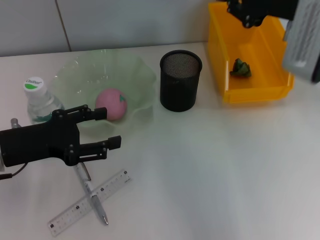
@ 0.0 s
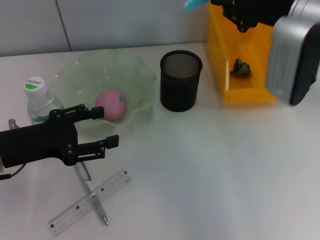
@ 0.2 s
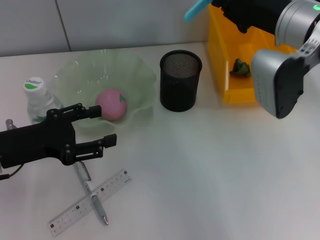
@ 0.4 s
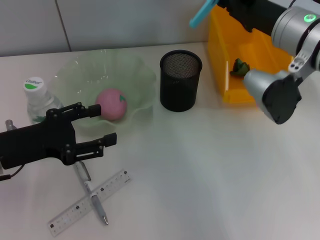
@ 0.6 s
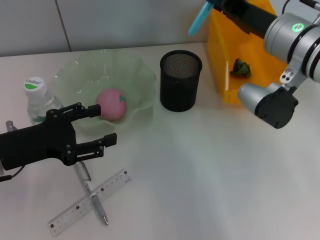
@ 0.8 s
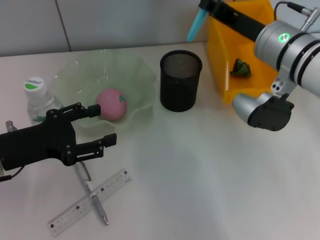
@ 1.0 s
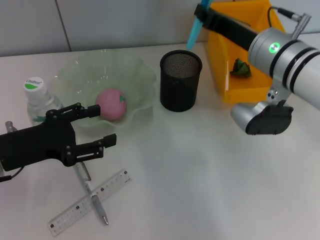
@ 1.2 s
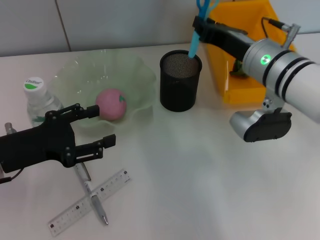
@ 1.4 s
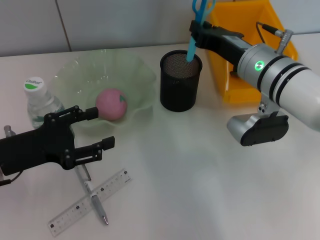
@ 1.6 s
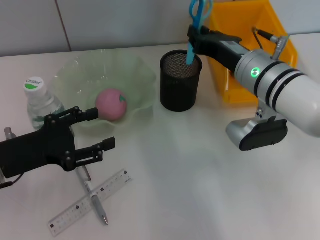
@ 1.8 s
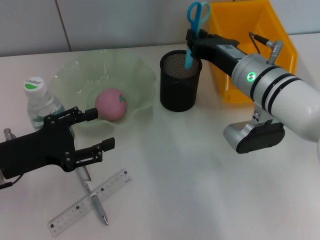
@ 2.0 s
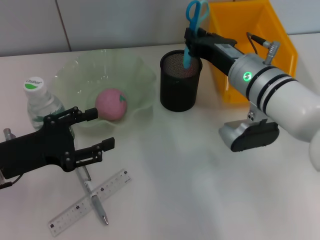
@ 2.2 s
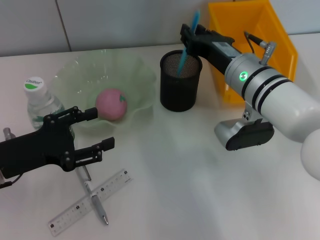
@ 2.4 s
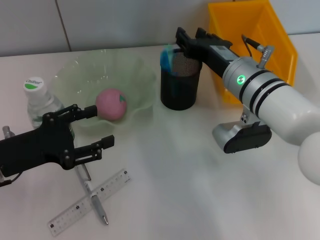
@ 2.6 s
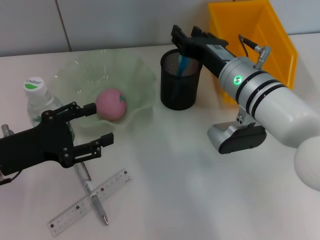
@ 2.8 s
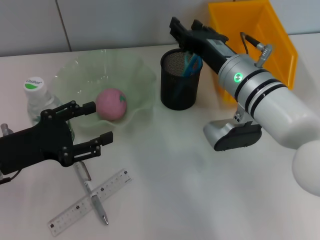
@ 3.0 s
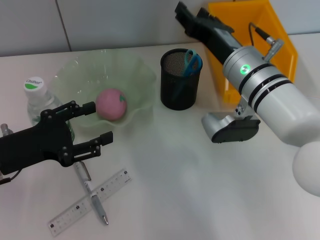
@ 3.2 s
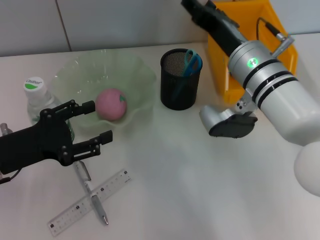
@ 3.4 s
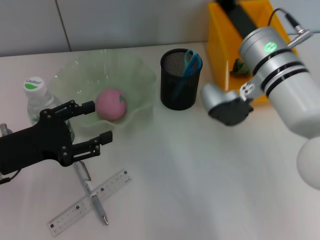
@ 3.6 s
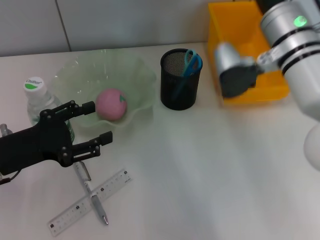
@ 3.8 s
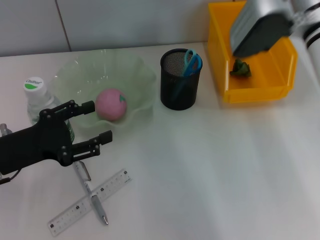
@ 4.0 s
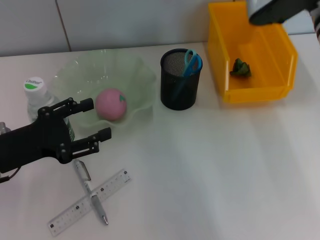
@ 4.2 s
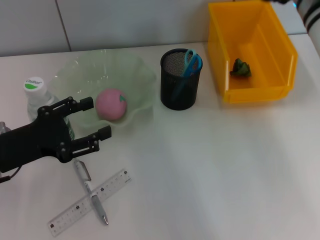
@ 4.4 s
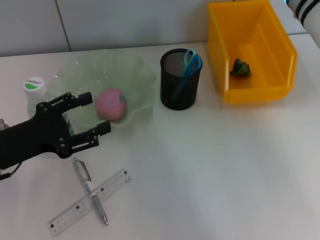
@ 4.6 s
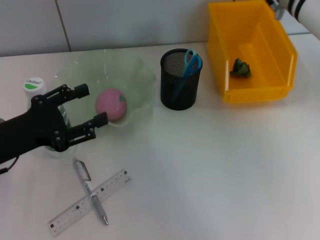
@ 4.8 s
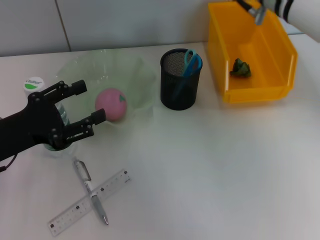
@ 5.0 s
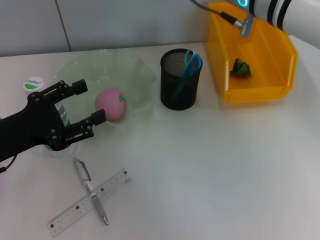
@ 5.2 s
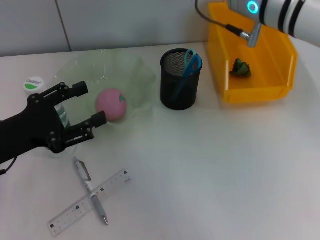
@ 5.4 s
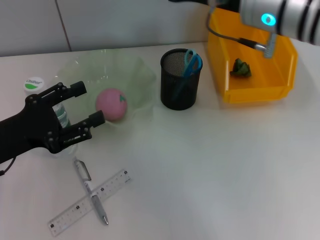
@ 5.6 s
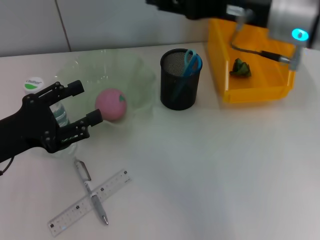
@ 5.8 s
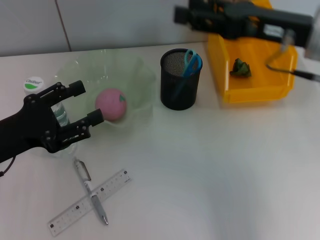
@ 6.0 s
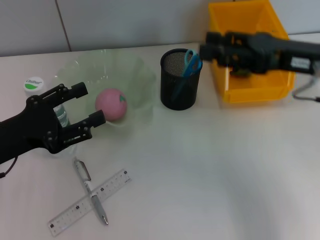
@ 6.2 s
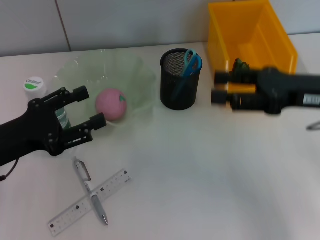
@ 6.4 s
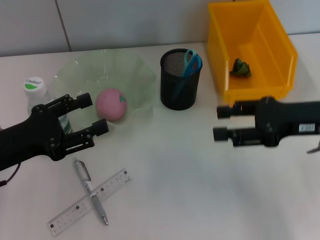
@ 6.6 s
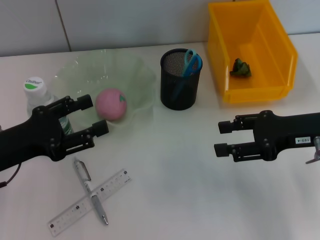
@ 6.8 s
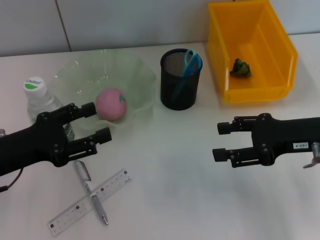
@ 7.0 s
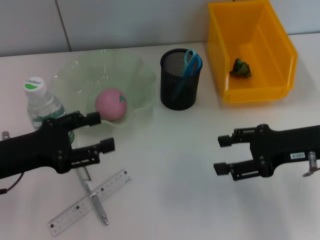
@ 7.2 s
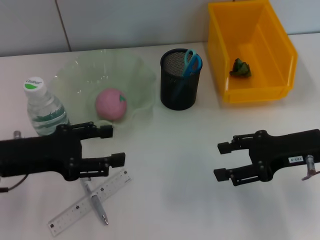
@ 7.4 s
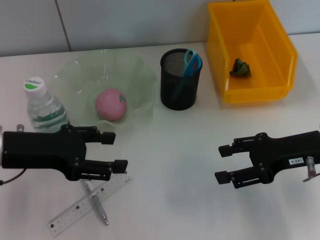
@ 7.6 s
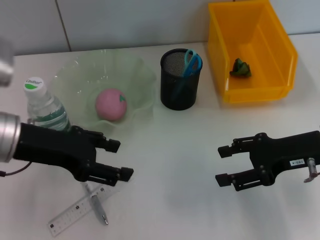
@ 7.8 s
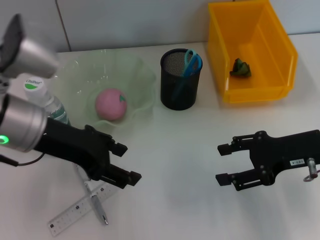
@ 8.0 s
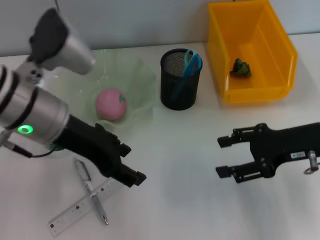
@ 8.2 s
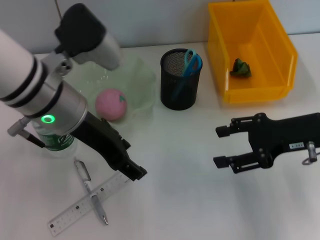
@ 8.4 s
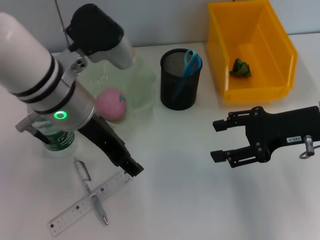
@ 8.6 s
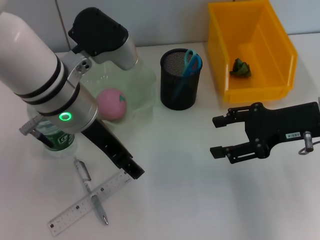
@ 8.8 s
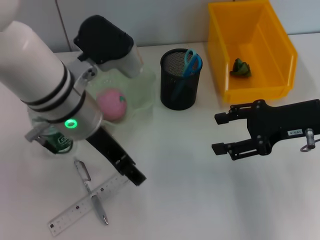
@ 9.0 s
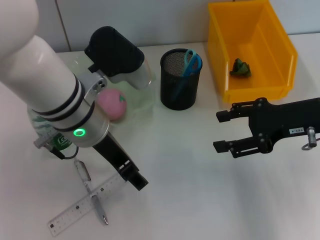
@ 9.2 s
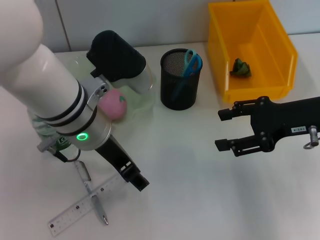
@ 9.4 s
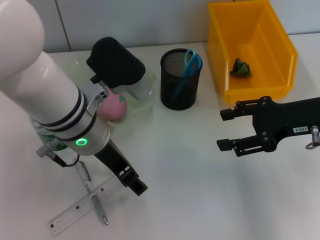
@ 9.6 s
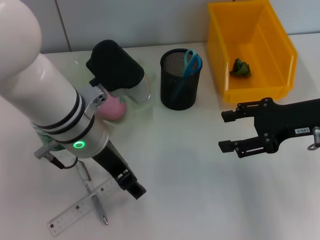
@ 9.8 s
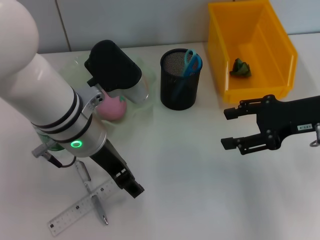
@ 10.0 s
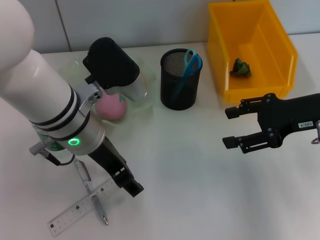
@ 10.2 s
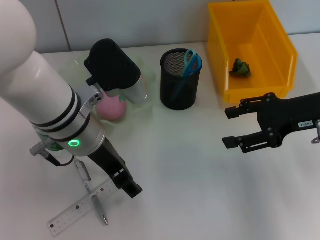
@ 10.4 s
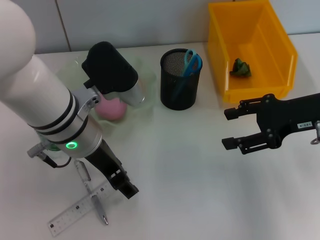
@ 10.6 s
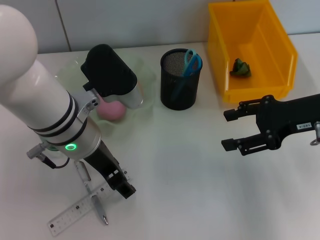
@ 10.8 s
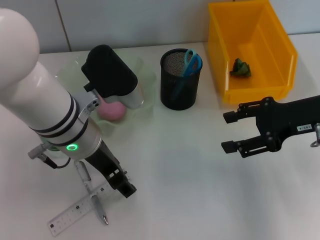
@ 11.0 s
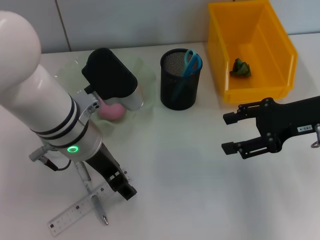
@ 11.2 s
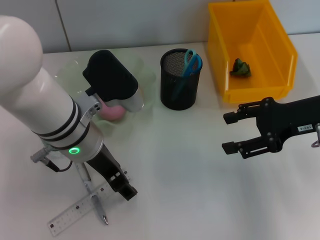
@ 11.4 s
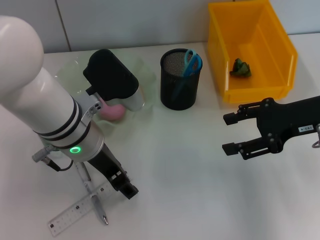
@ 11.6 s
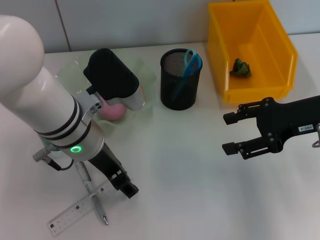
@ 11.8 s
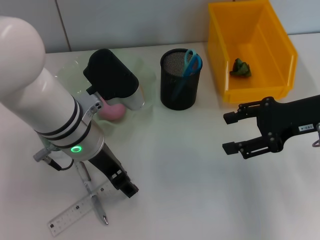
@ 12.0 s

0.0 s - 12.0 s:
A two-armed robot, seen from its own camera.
Step, 0.0 s - 2.8 s: Place the blue utility knife into the pen holder with the right hand.
0.0 s - 1.6 s: The right gripper goes some 10 cm downward and to the left.
1.6 s - 3.0 s: There are only small adjustments of the grippers.
3.0 s - 4.4 s: The right gripper heads upward and to the right, covering approximately 10 cm.
4.4 s - 6.0 s: The right gripper goes some 5 cm backward, and moves about 5 cm to the left and comes back.
6.0 s - 7.6 s: The right gripper shifts about 10 cm downward. The left gripper changes place by approximately 5 cm.
7.6 s - 9.0 s: The left gripper travels to the right by some 15 cm.
9.0 s - 12.0 s: The grippers move only a little.

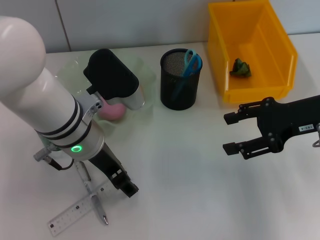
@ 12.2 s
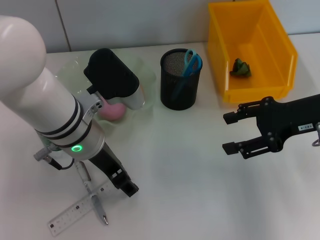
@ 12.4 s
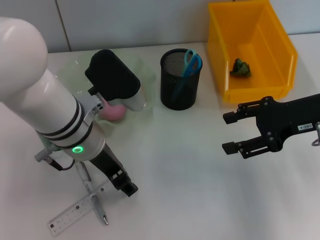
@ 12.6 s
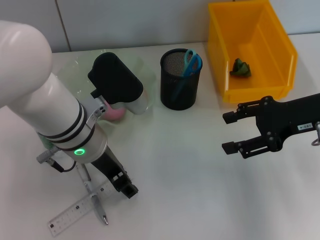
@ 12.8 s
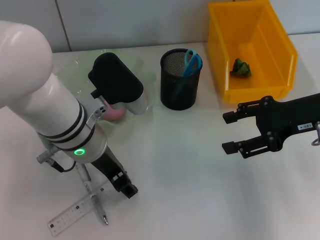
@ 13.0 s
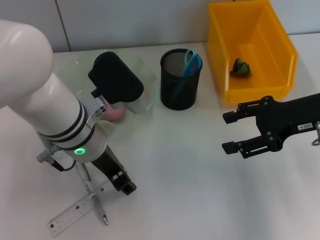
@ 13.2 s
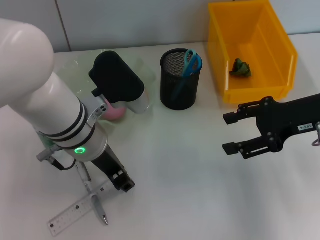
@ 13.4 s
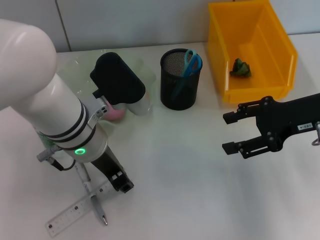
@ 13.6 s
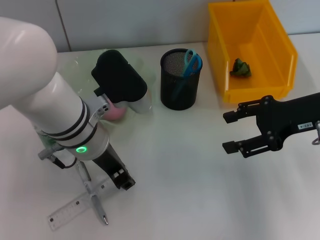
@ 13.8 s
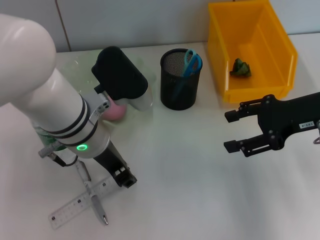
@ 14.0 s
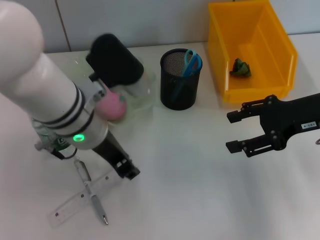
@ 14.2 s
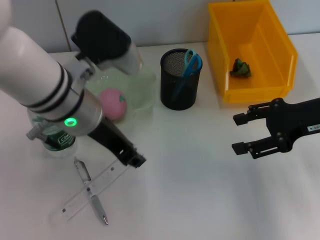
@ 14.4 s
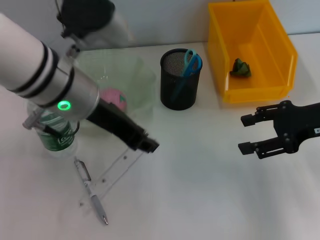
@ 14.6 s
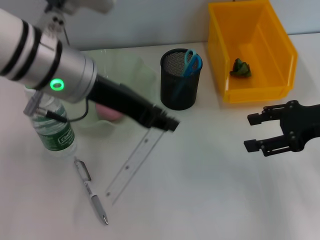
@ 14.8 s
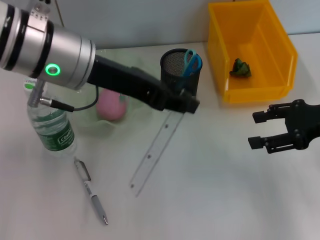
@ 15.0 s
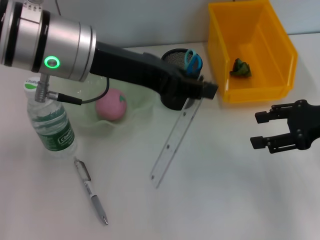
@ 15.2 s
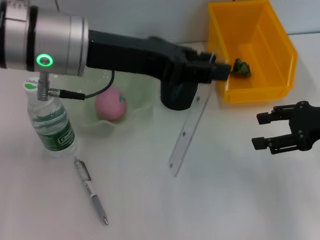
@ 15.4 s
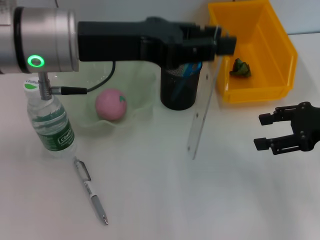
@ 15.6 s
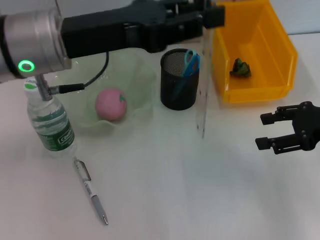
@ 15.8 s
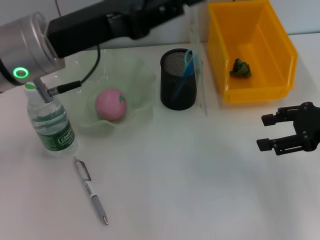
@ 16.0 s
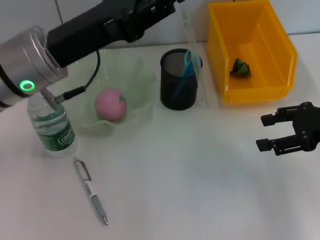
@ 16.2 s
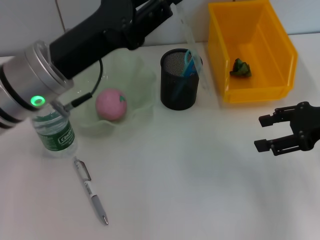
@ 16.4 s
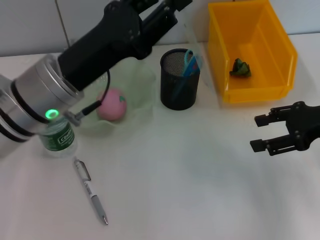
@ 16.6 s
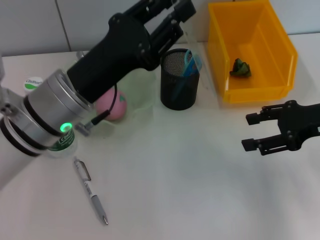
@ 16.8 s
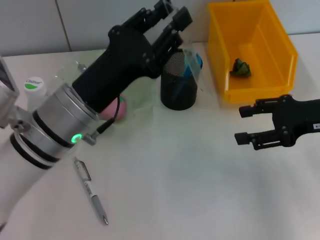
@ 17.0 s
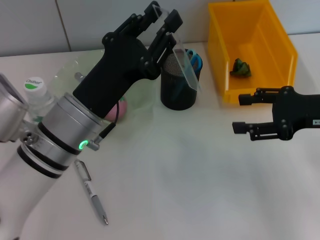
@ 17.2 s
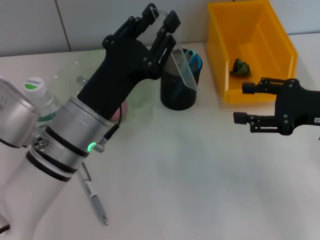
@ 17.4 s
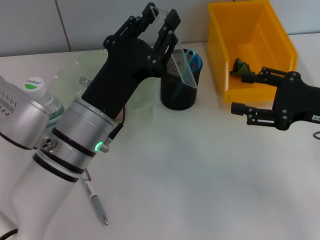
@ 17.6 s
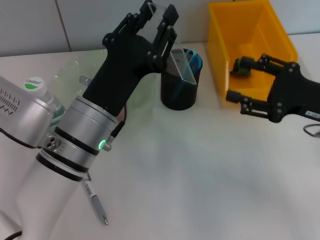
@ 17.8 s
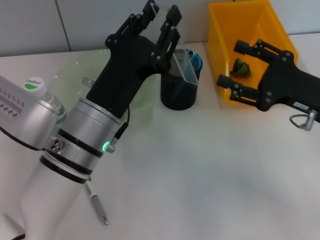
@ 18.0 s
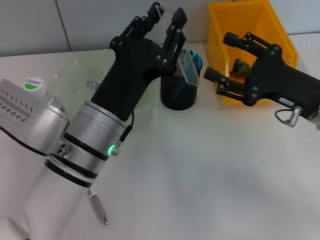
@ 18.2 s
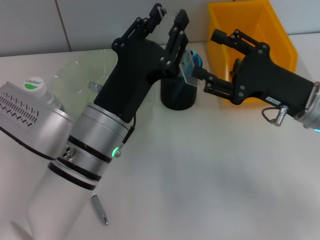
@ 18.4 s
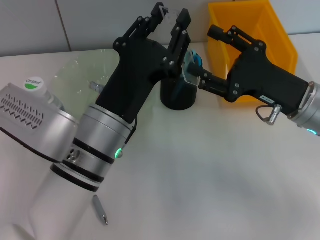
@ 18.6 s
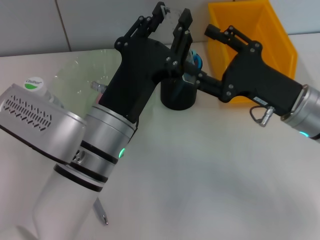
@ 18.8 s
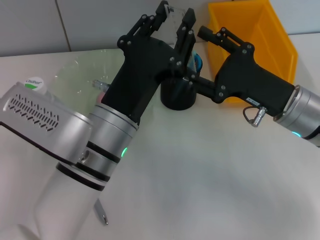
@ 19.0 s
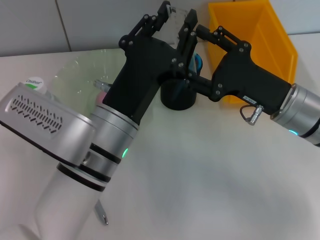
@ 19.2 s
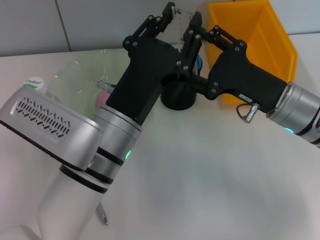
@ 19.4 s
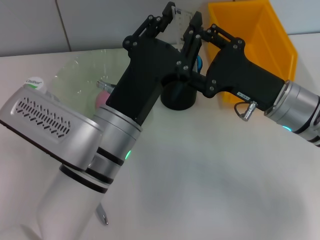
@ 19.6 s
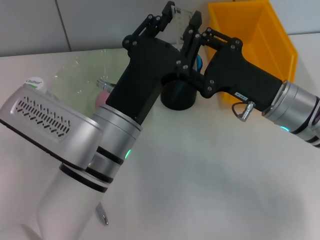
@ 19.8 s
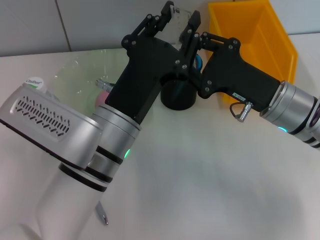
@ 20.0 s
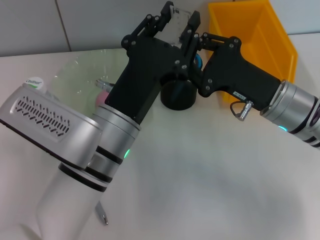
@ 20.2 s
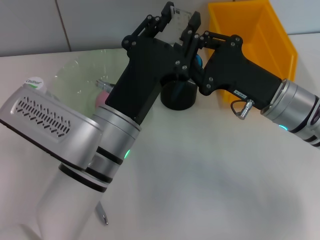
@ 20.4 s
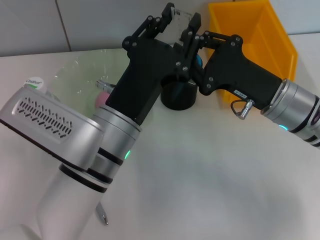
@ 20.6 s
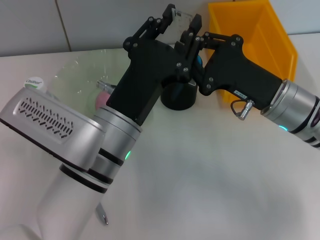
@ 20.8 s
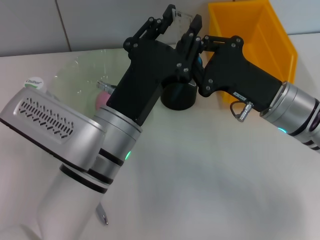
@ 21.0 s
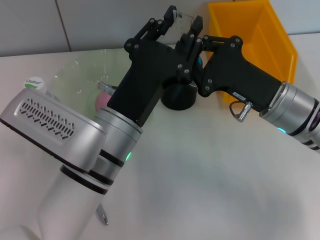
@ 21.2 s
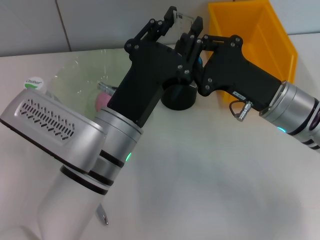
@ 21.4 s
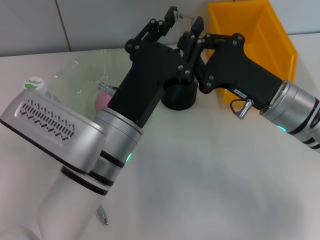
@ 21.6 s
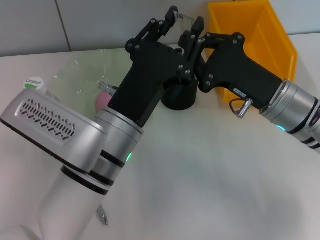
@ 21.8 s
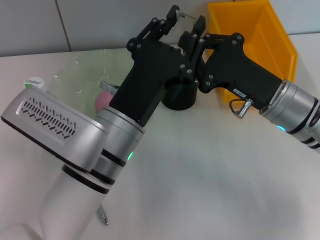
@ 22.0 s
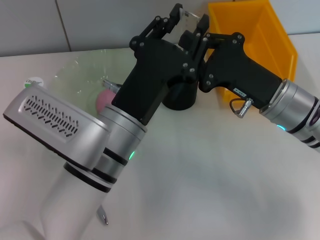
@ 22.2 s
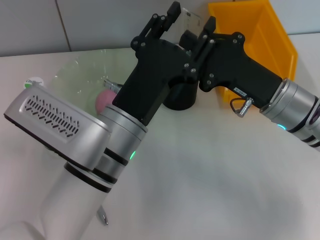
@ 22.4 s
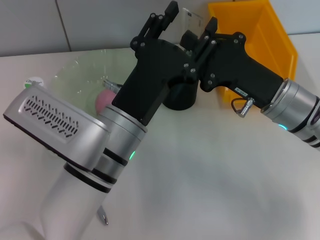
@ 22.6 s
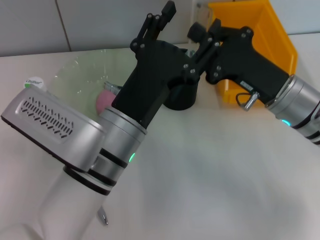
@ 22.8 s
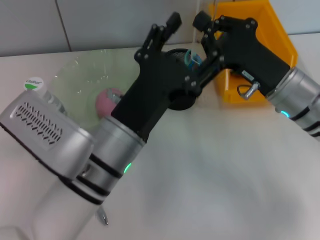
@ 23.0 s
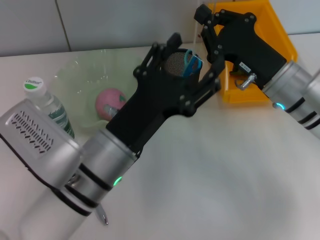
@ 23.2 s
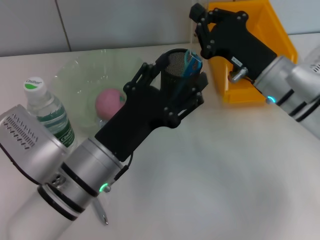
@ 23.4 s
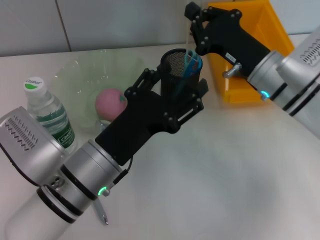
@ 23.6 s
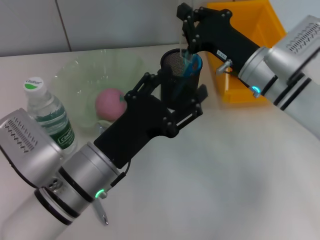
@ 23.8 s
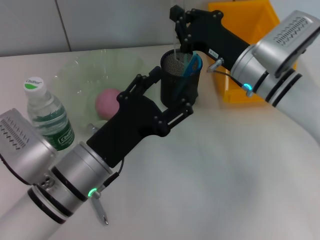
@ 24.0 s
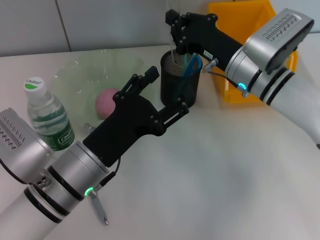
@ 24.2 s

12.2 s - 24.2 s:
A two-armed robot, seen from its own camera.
Step, 14.0 s - 22.6 s: Pass the ruler from the left hand to the right hand.
12.2 s - 13.8 s: The left gripper closes up.
13.8 s - 15.2 s: The left gripper is displaced upward by approximately 10 cm.
15.2 s - 16.6 s: The left gripper goes some 10 cm downward.
16.6 s - 18.2 s: The right gripper travels to the left by some 5 cm; the left gripper moves to the right, about 5 cm.
18.2 s - 19.8 s: The right gripper travels to the left by some 5 cm.
19.8 s - 21.2 s: The right gripper closes its fingers.
21.2 s - 22.6 s: The left gripper opens.
22.6 s - 24.2 s: The right gripper shifts roughly 5 cm forward; the left gripper moves to the left, roughly 5 cm.
